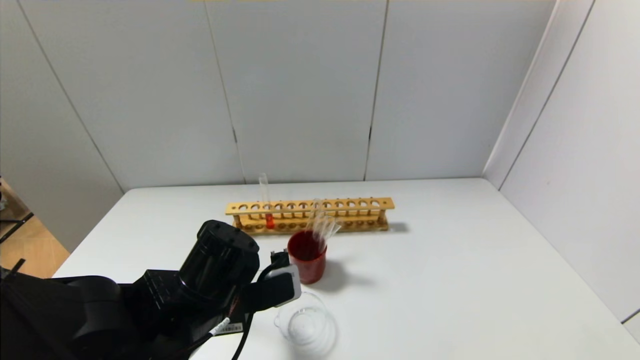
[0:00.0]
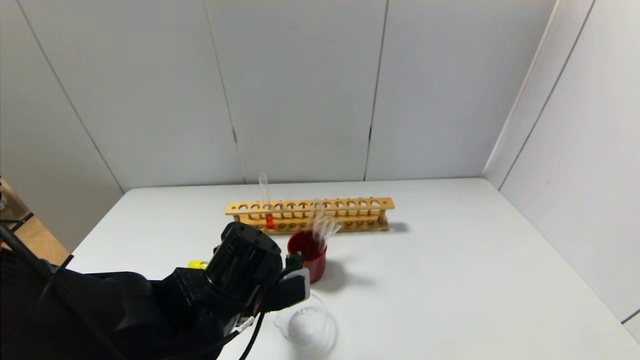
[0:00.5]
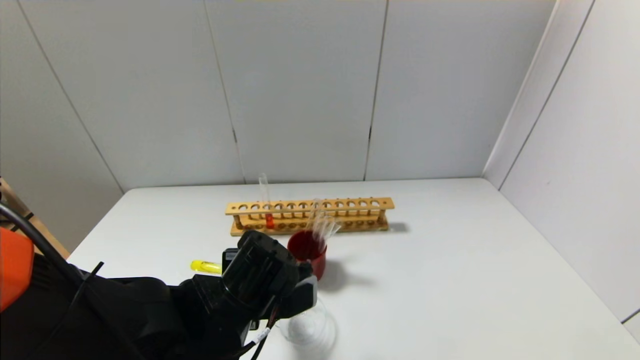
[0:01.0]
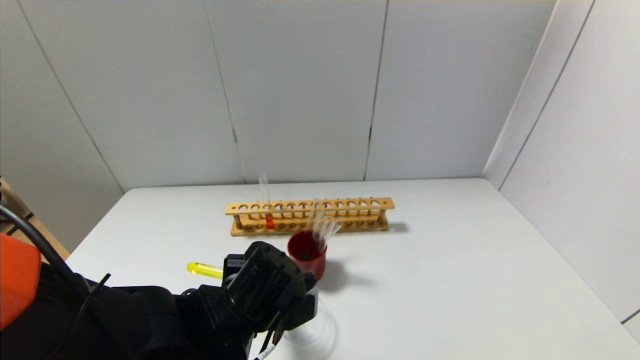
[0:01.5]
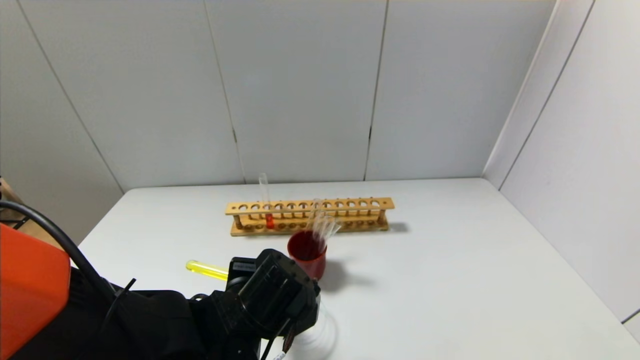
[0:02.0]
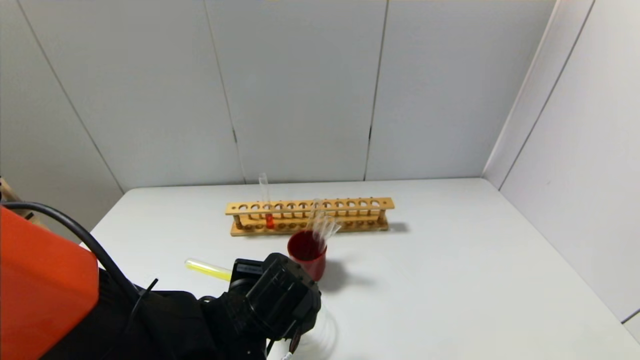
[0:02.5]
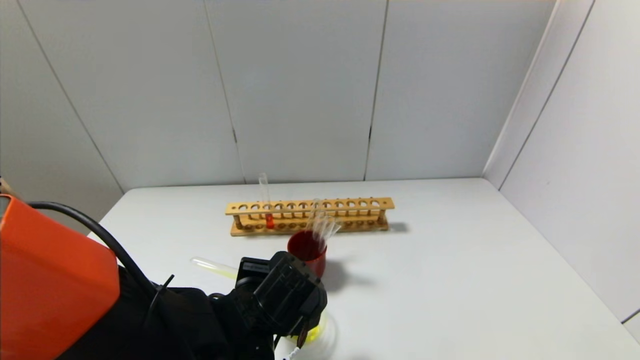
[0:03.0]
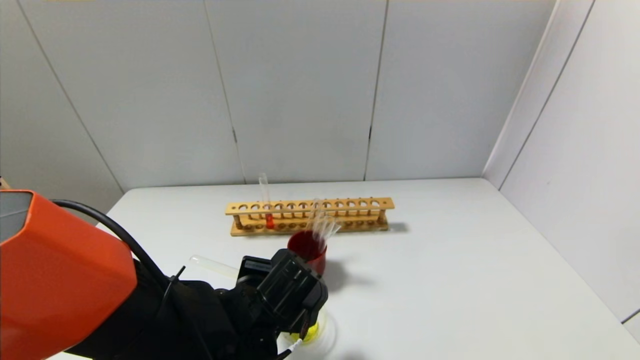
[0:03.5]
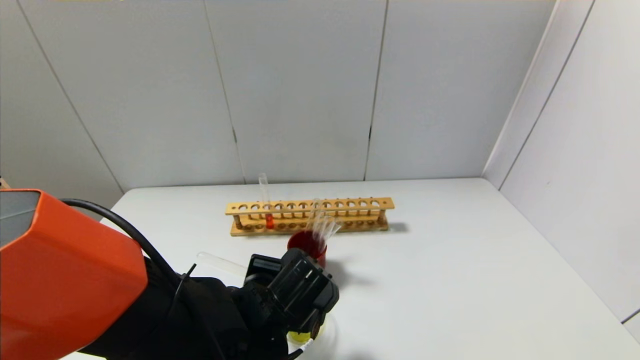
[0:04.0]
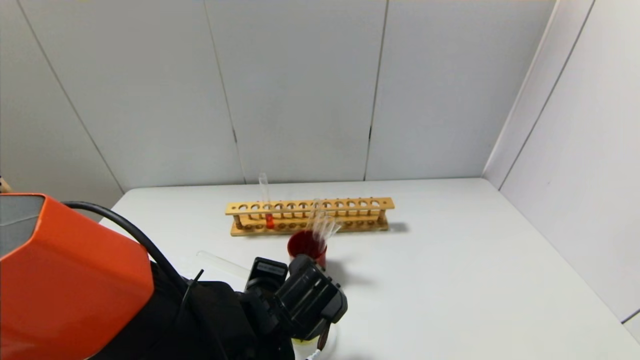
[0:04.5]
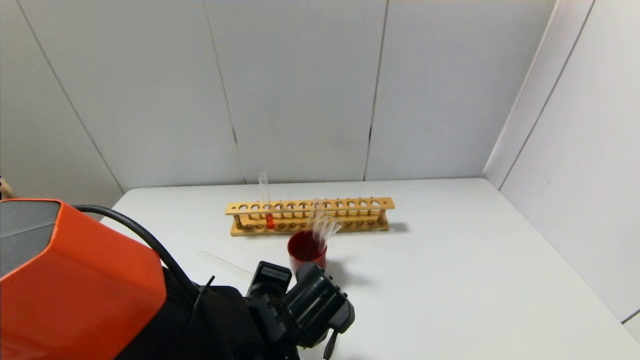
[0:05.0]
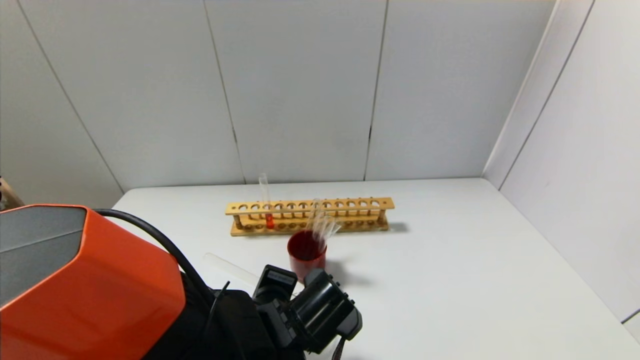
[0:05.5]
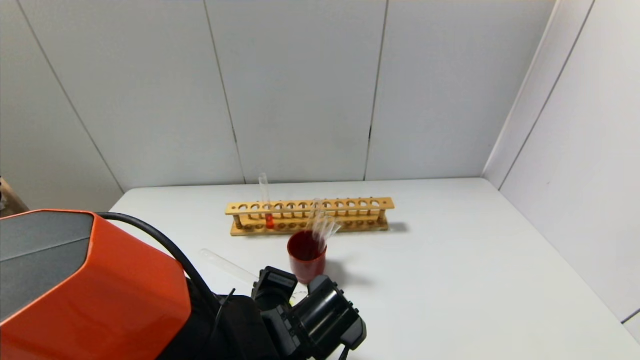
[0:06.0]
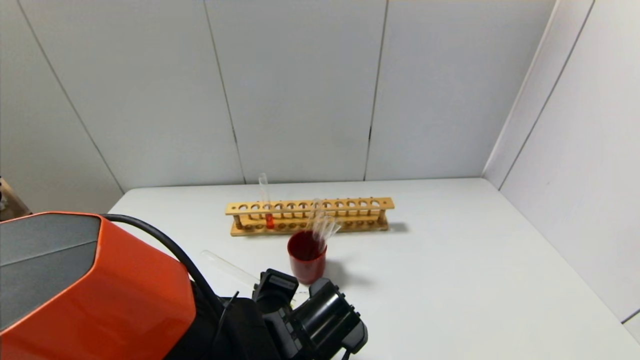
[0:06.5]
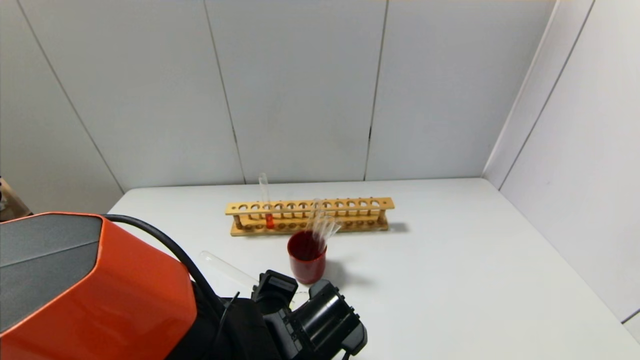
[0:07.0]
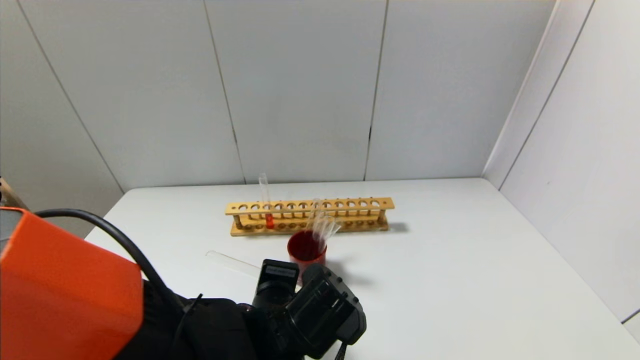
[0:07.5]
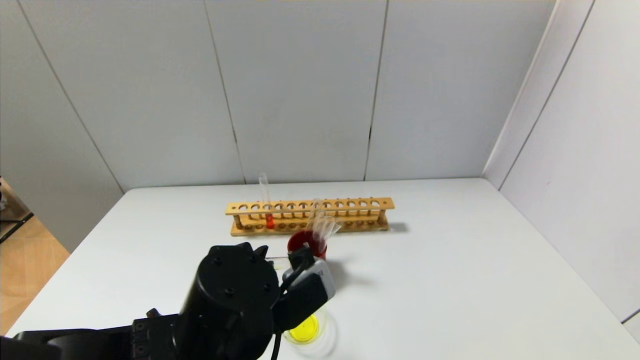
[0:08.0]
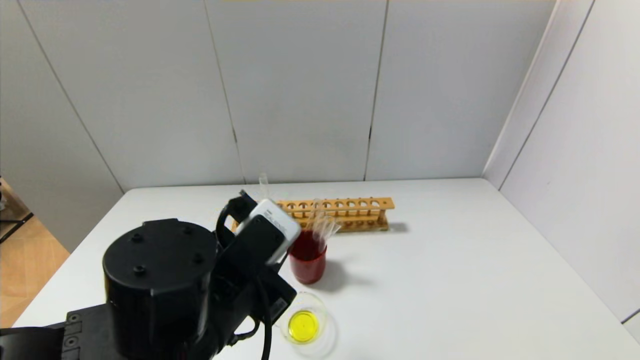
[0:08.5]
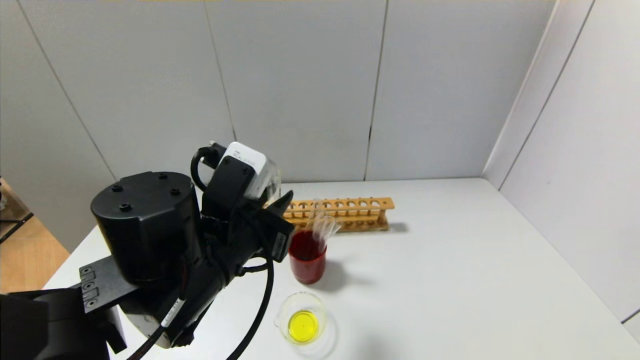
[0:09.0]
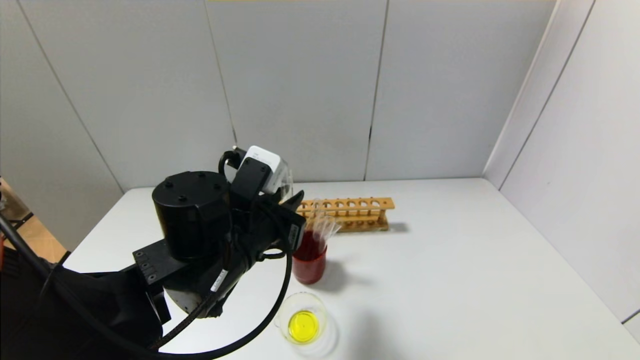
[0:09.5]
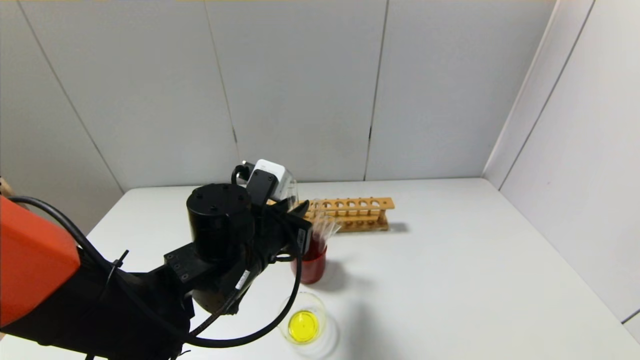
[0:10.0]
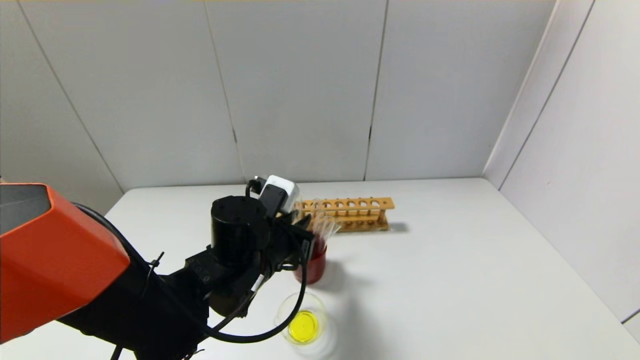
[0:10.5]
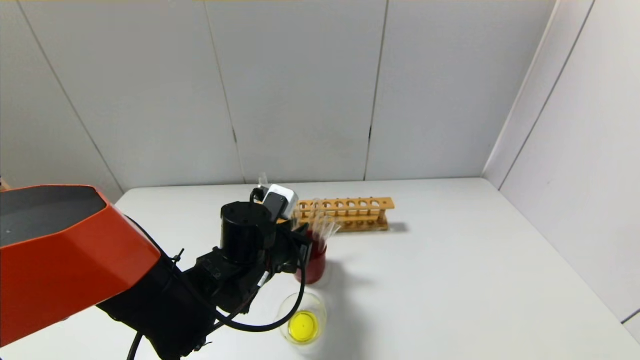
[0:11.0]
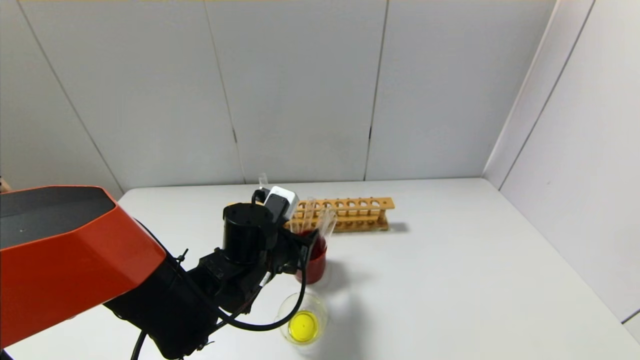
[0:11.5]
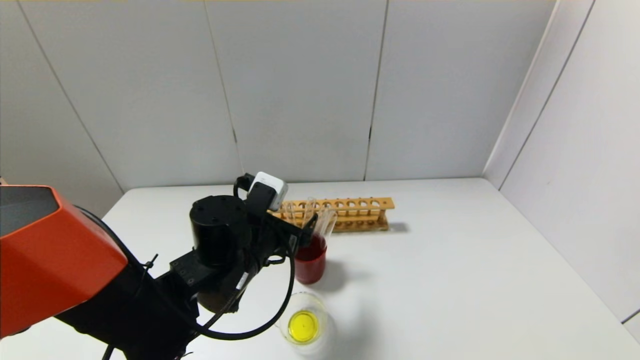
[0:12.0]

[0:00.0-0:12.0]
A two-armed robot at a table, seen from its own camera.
Step, 0:00.0 to 0:08.0: Pour the yellow reagent into the graduated cylinder with the left gripper.
Step, 0:08.5 to 0:11.5: Place the test tube into the brown cup with the left gripper.
0:02.0 to 0:04.0: The grippers make only small movements.
0:04.0 to 0:06.0: There are only small adjustments of the grippers.
0:06.0 to 0:08.0: The left gripper is displaced upward by approximately 10 cm.
0:08.0 to 0:10.0: The left gripper heads forward, covering roughly 10 cm.
0:10.0 to 0:12.0: The left gripper opens up.

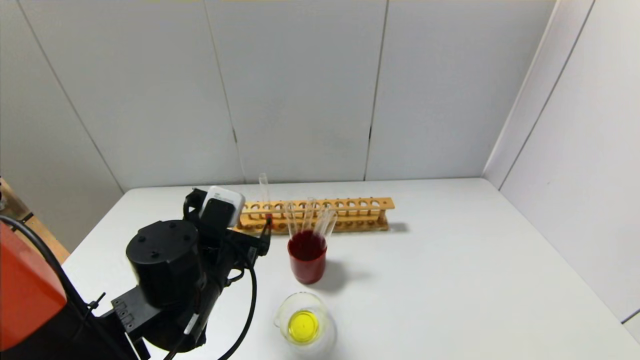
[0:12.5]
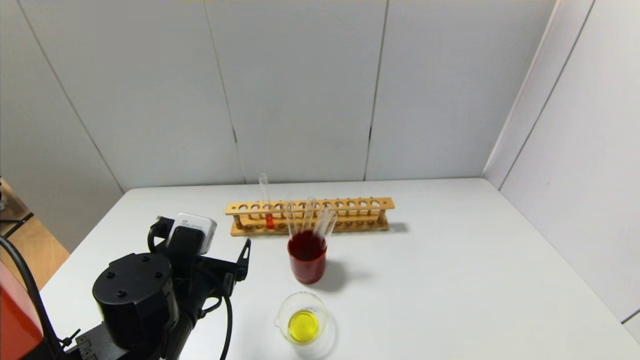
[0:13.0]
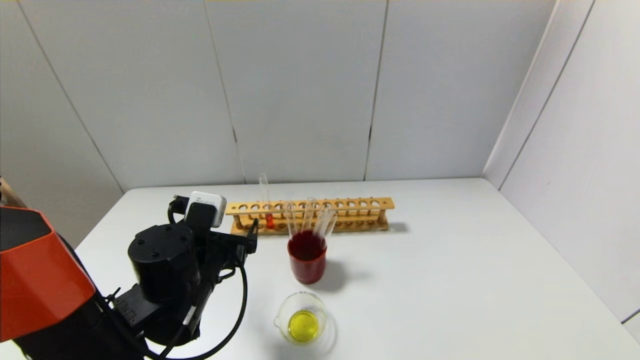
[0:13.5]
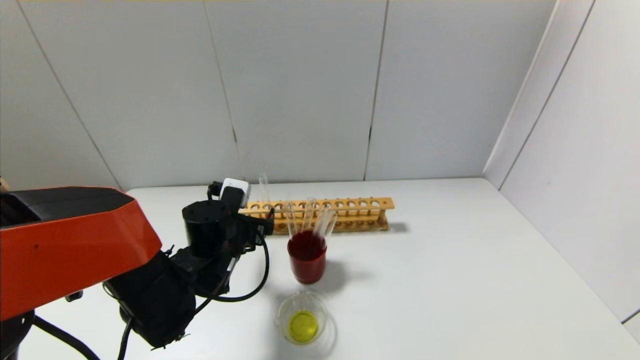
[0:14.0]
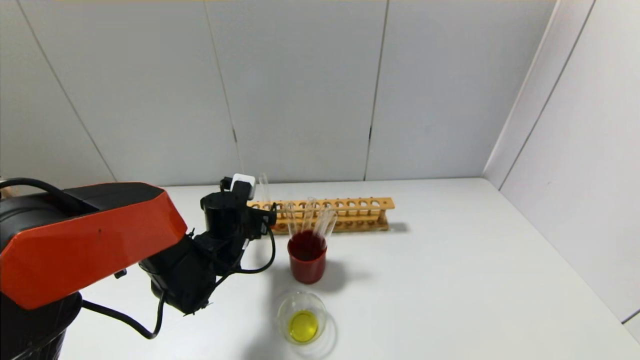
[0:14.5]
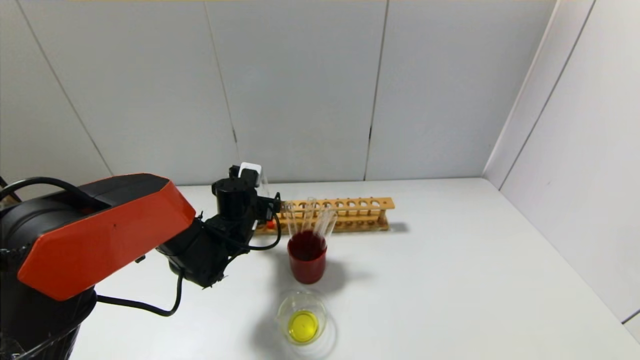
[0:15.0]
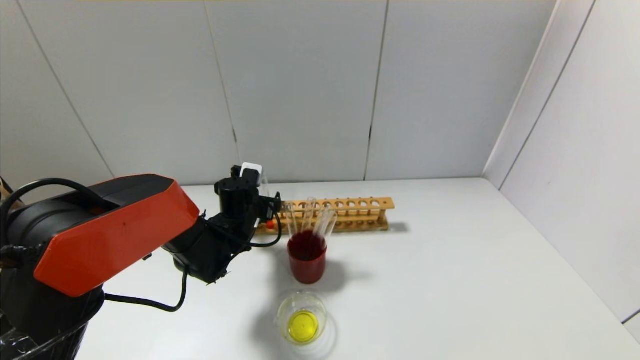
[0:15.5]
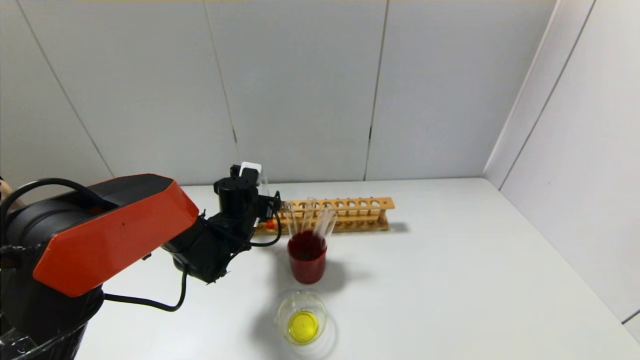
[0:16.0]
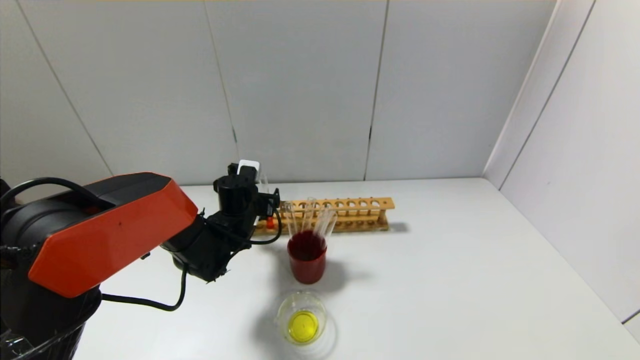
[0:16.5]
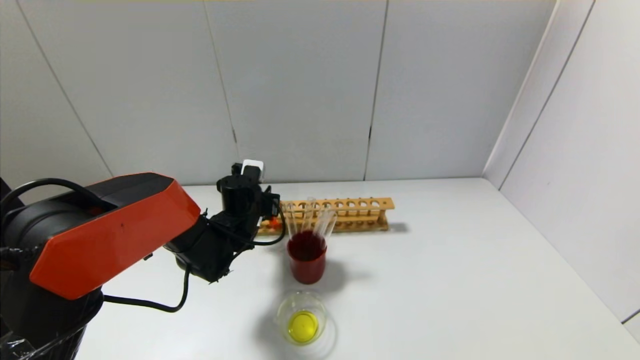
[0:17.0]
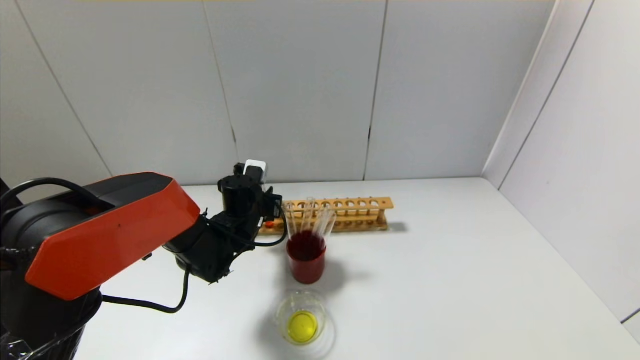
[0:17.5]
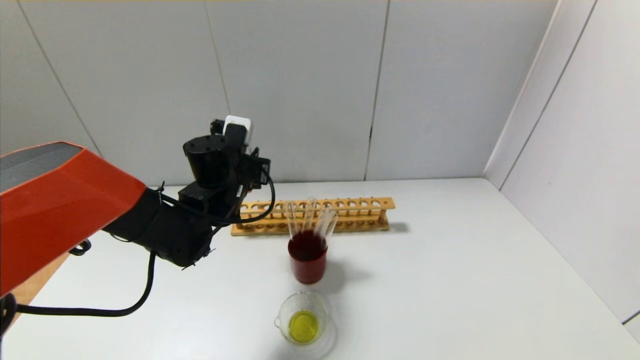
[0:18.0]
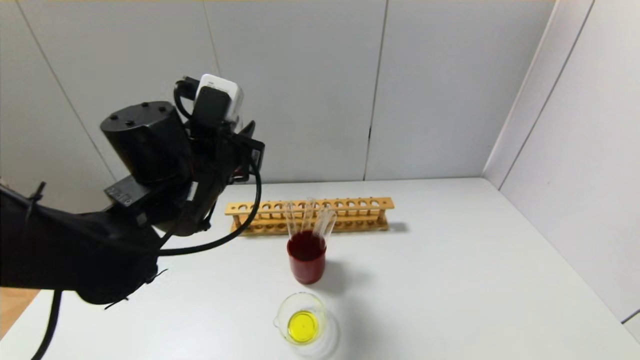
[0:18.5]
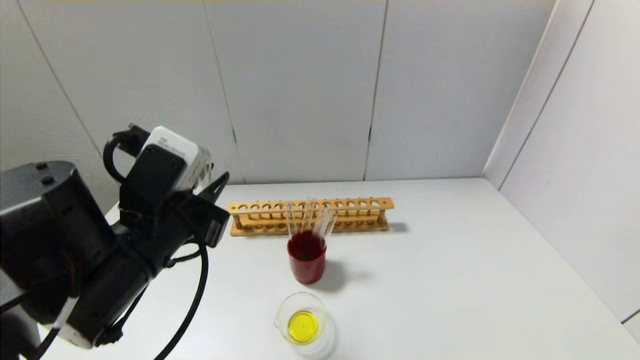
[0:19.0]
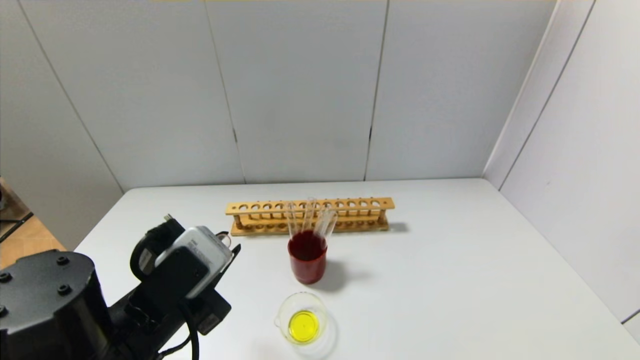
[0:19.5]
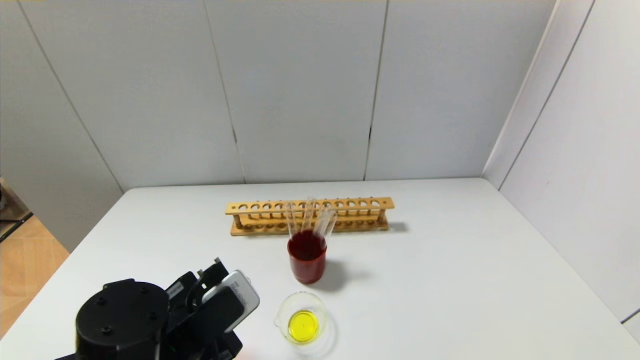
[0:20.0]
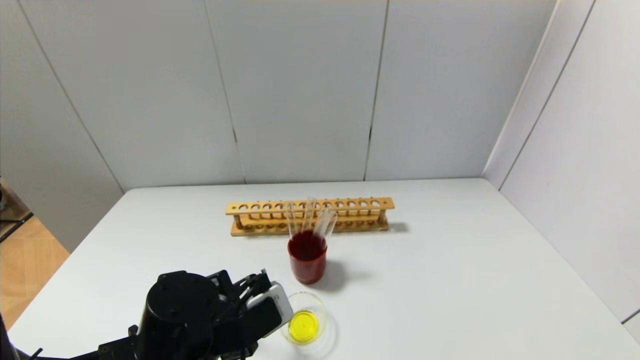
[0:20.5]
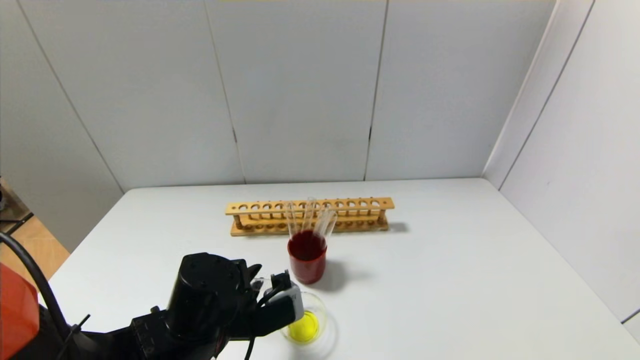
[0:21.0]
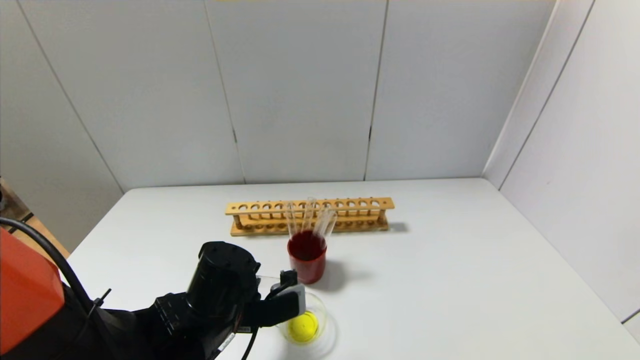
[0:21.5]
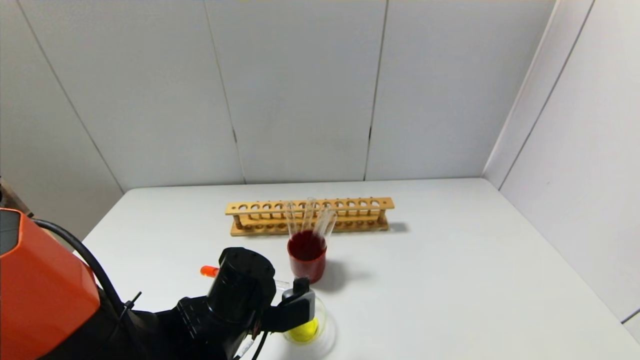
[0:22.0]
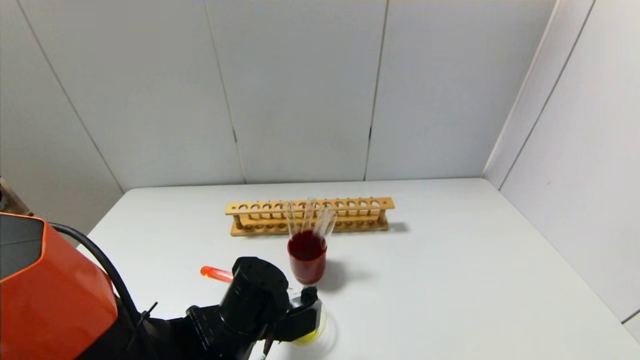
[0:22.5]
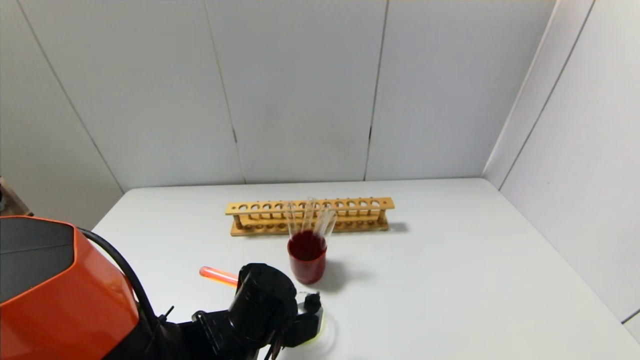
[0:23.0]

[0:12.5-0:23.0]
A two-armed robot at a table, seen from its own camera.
Step, 0:12.5 to 0:17.0: Grasp the red reagent with the left gripper.
0:12.5 to 0:14.5: The left gripper goes approximately 15 cm forward and downward.
0:14.5 to 0:16.5: There are only small adjustments of the grippers.
0:16.5 to 0:19.0: The left gripper heads backward and upward, covering roughly 25 cm, and closes up.
0:19.0 to 0:21.0: The left gripper travels downward by approximately 10 cm.
